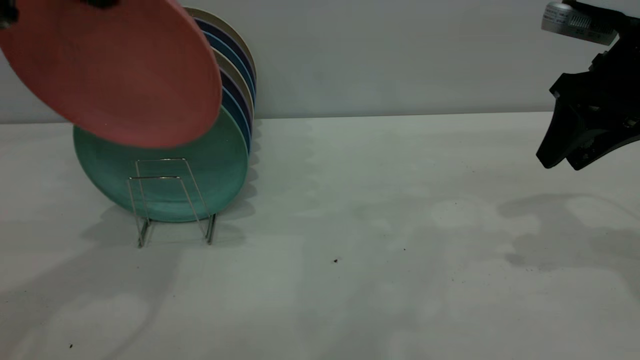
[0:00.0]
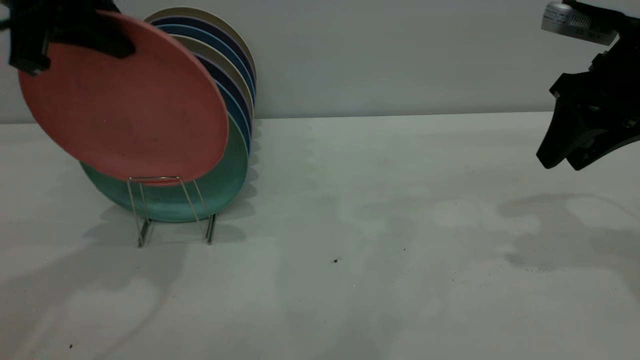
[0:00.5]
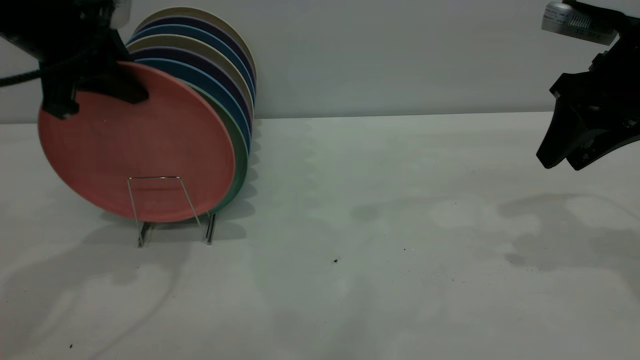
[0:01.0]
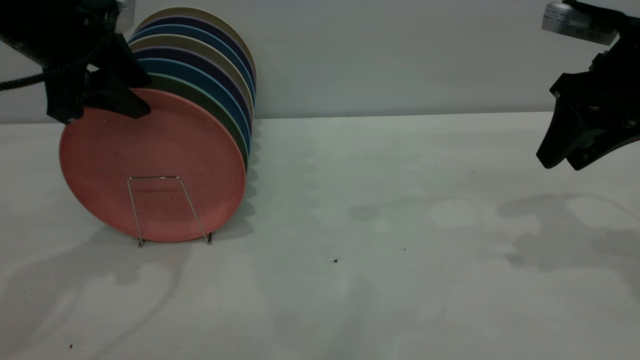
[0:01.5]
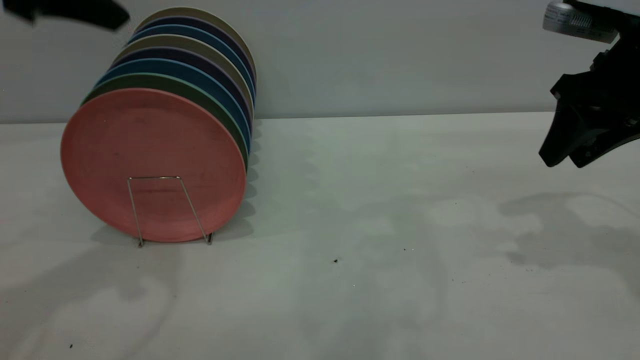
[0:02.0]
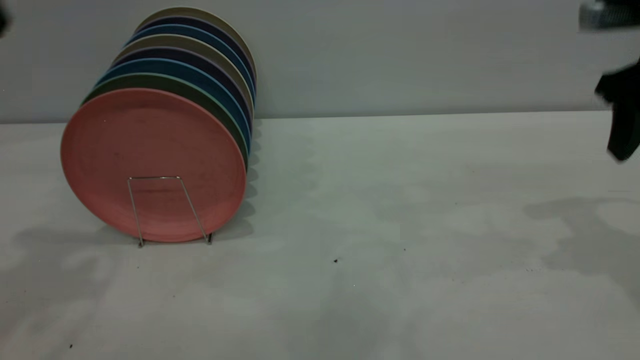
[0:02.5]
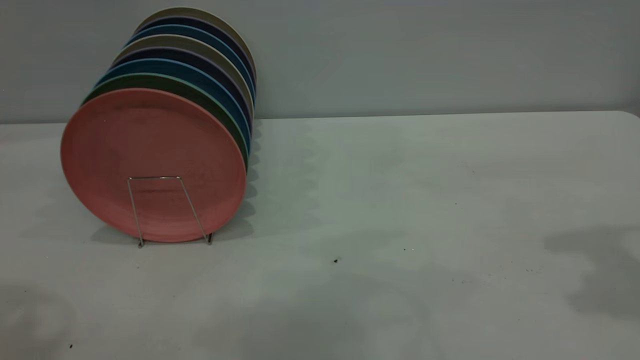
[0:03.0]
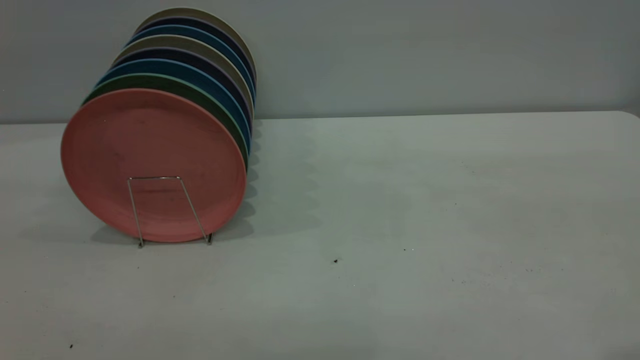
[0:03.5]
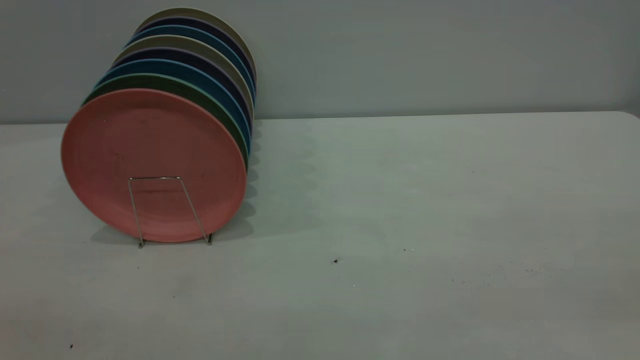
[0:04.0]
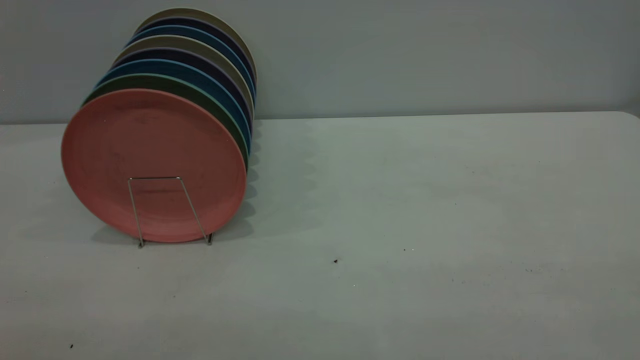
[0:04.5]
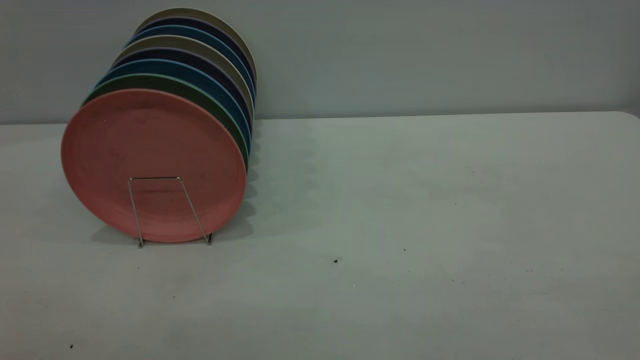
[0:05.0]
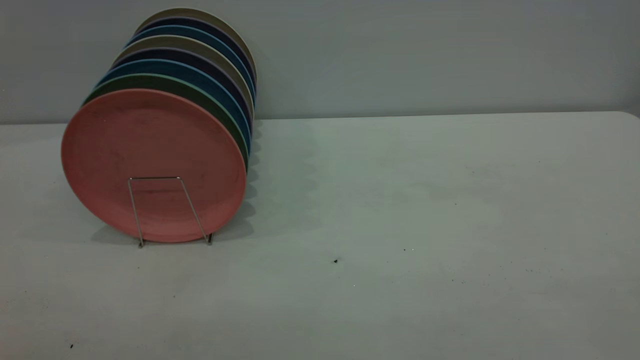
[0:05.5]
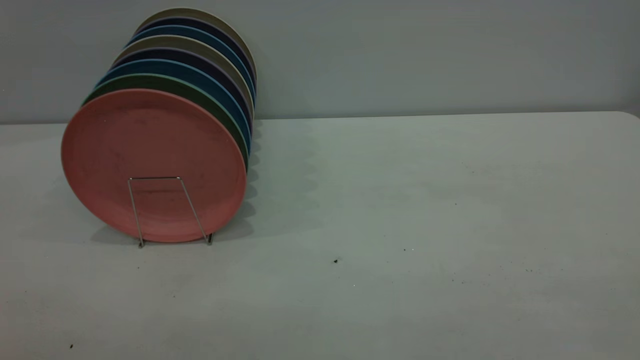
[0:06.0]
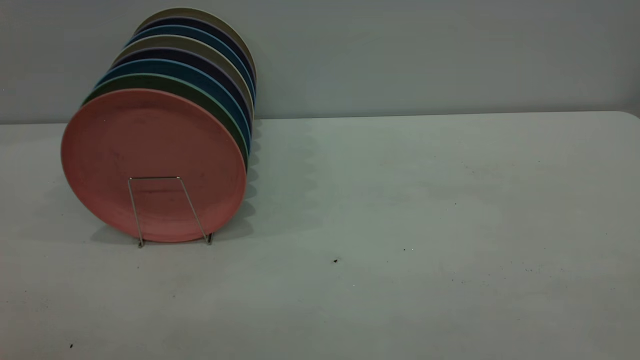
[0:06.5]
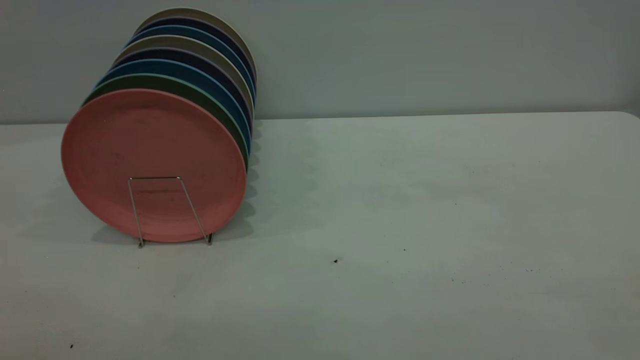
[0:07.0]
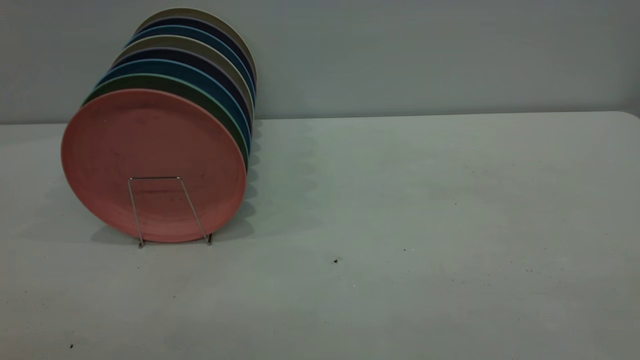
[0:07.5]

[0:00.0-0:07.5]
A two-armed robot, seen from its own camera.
Task of the whole recording: the right gripper grasp the pink plate, the right gripper pass the pink plate to the left gripper, and the left gripper place the pink plate on the plate rack.
0:00.0 to 0:02.0: The left gripper travels downward and back again, roughly 10 cm each way, and opens up.
0:02.0 to 0:04.0: The left gripper goes roughly 30 cm backward. Meanwhile the right gripper shifts about 35 cm backward and upward.
0:05.5 to 0:07.5: The two grippers keep their place.
